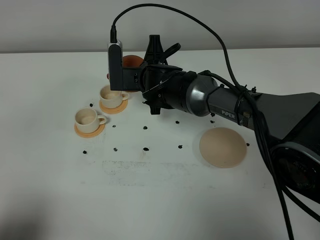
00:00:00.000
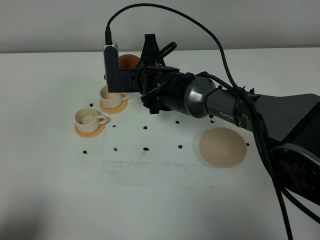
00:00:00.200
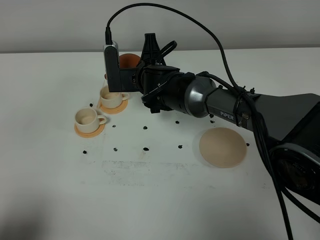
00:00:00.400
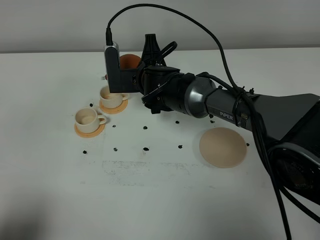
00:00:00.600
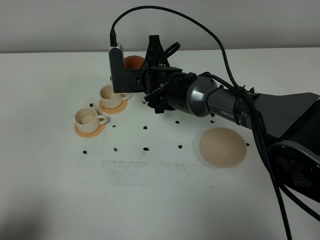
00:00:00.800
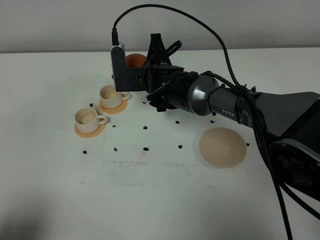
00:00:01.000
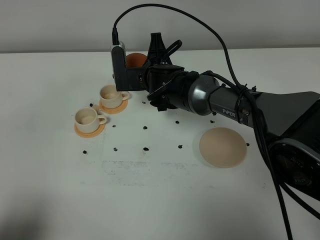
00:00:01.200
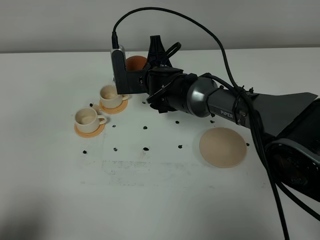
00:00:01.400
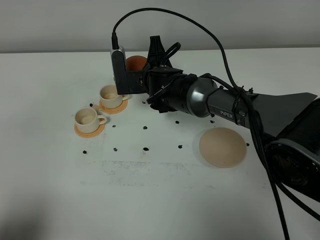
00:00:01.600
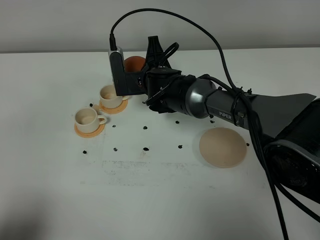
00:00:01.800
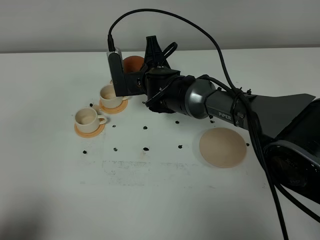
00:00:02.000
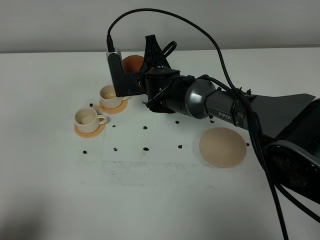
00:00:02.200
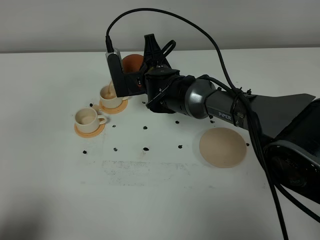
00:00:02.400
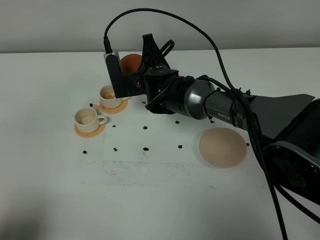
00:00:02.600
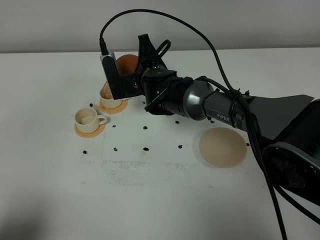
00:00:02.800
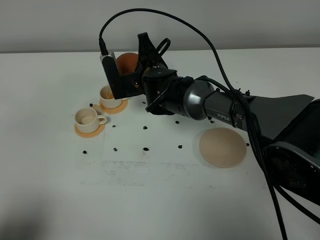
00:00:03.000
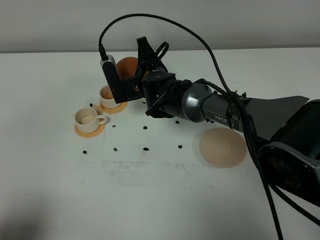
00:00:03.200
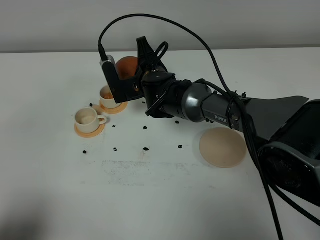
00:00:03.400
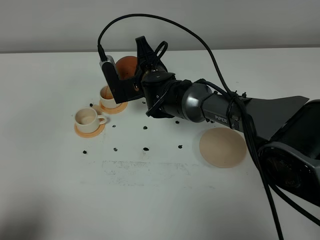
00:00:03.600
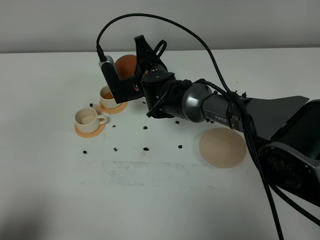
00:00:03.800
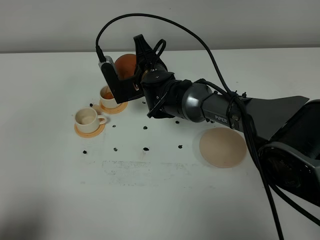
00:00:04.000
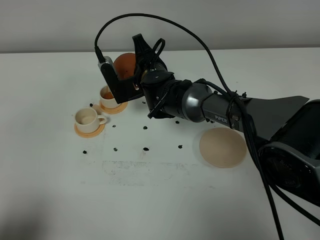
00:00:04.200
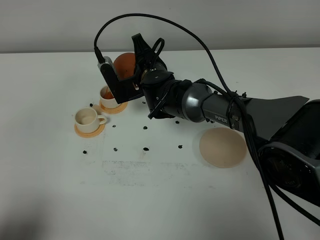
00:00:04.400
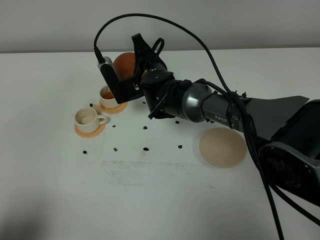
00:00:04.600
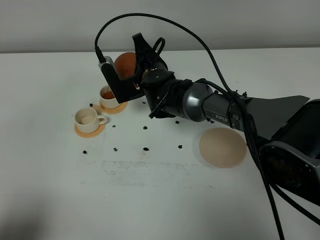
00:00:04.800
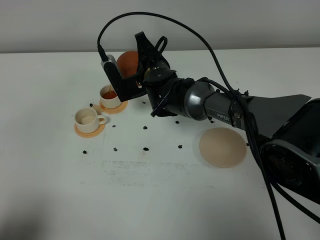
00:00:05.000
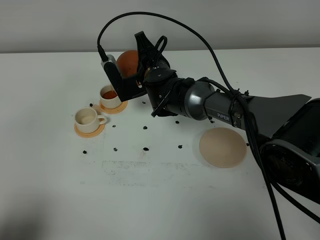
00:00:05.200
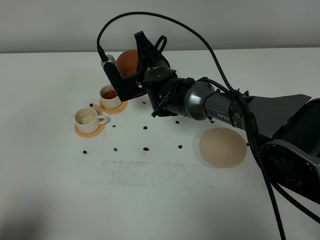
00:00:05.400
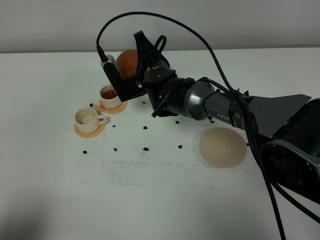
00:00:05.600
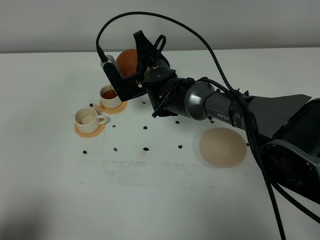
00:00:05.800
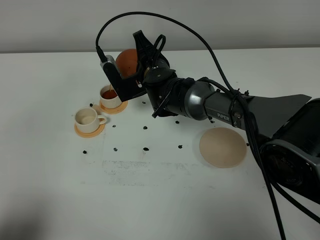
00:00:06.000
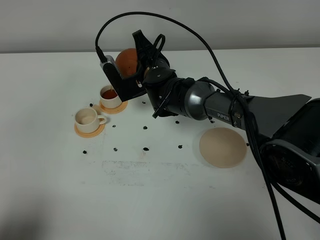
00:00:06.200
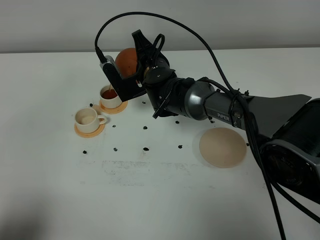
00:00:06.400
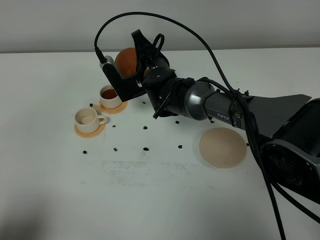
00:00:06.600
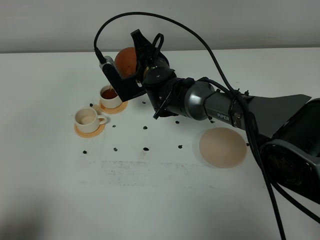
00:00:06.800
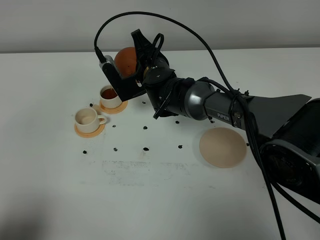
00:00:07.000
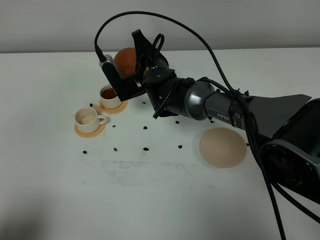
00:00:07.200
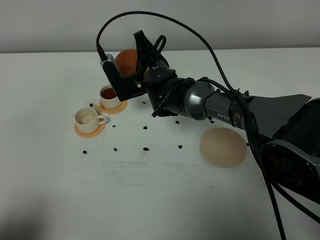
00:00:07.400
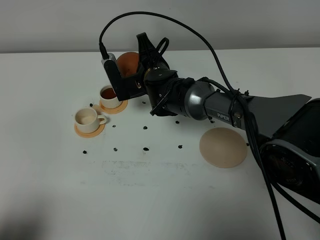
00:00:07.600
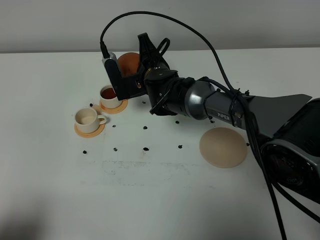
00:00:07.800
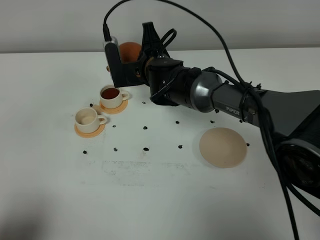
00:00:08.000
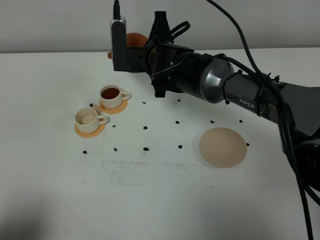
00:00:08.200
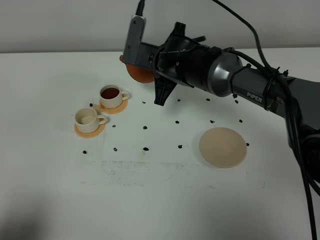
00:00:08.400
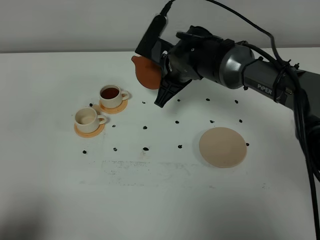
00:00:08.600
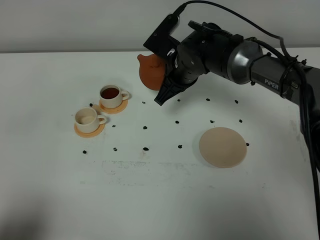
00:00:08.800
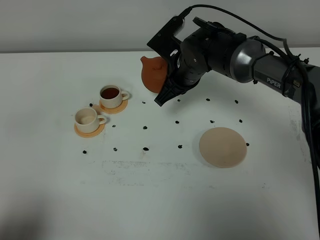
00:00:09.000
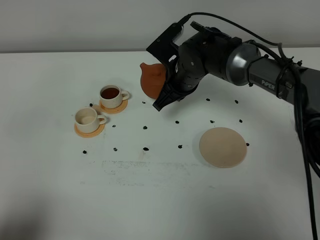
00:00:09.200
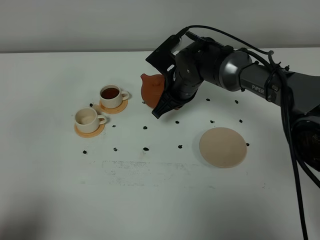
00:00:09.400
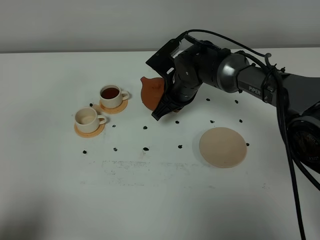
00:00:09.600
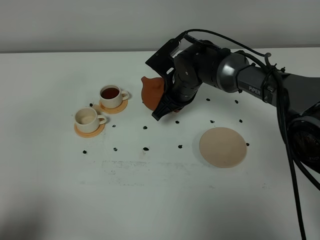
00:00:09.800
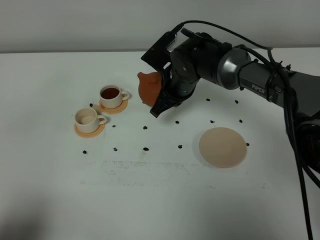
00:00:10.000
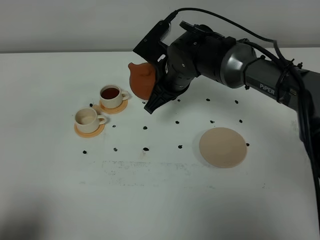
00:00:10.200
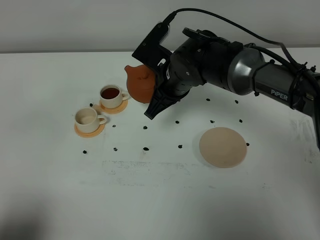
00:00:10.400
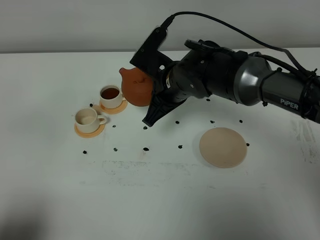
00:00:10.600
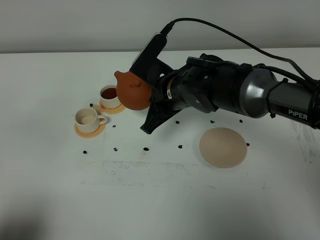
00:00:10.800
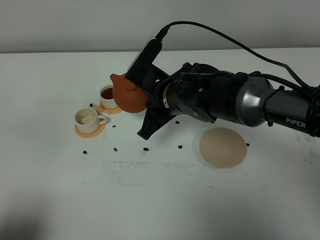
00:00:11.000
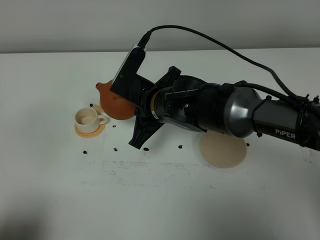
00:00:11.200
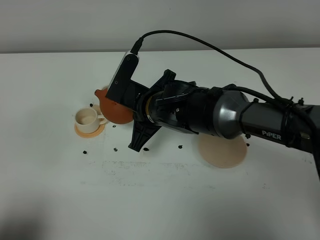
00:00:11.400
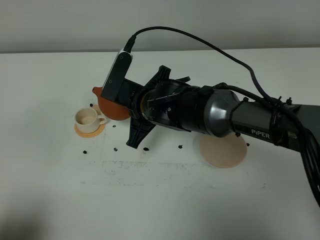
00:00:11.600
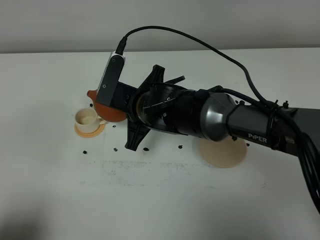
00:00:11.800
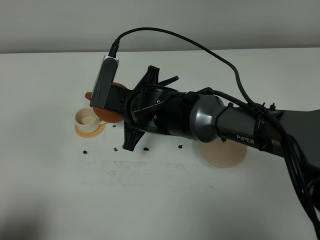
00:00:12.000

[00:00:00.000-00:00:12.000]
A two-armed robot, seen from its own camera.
Task of the whole recording: grasp the brown teapot and pour the tea into the two white teacups one by one, put the brown teapot back in its original place.
Step, 00:00:00.000 to 00:00:07.800: Pour tea into the teacup with the right gripper.
00:00:00.000 to 00:00:03.000: There are only small adjustments of the grippers.
00:00:03.000 to 00:00:04.400: The grippers move only a little.
00:00:04.400 to 00:00:06.000: Neither gripper changes place.
00:00:06.000 to 00:00:07.600: The grippers make only small movements.
00:00:07.600 to 00:00:09.000: The right gripper heads to the right, covering some 5 cm.
00:00:09.000 to 00:00:10.400: The right gripper ends up approximately 5 cm from where it was.
00:00:10.400 to 00:00:12.000: The right gripper travels to the left by about 5 cm.

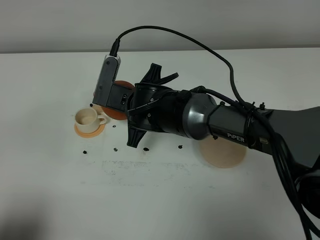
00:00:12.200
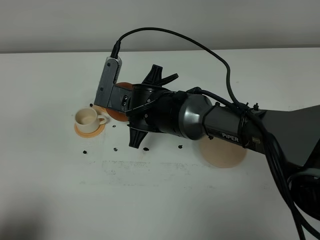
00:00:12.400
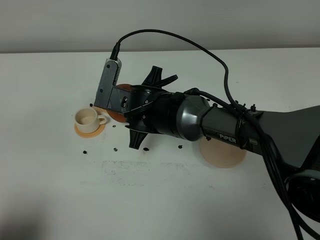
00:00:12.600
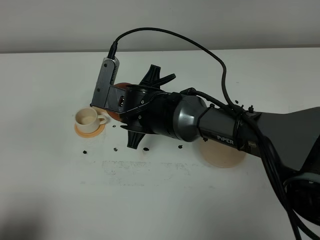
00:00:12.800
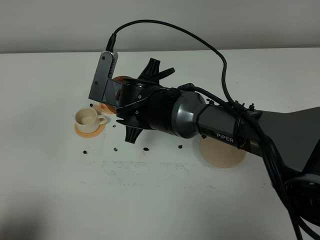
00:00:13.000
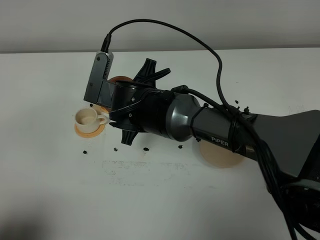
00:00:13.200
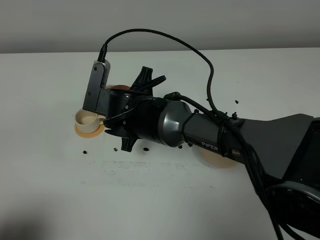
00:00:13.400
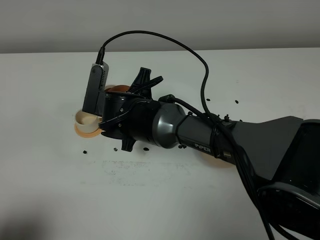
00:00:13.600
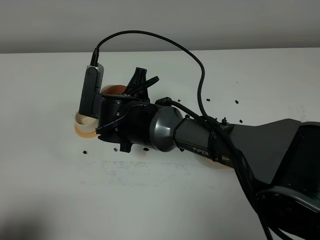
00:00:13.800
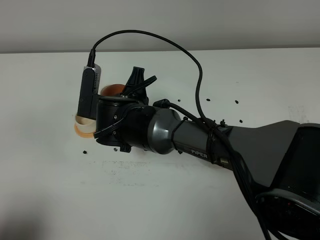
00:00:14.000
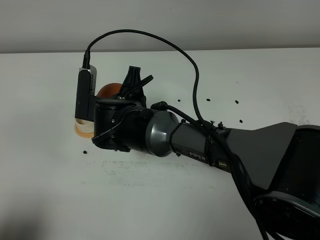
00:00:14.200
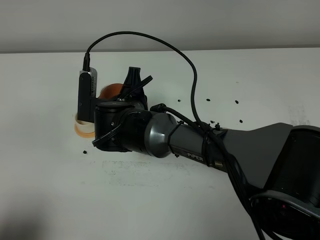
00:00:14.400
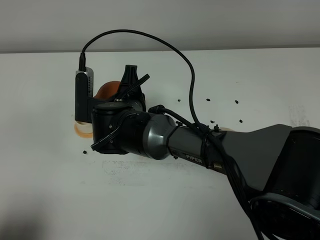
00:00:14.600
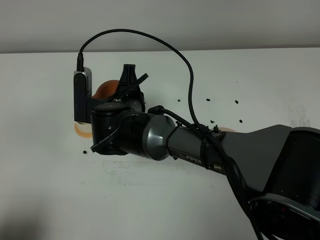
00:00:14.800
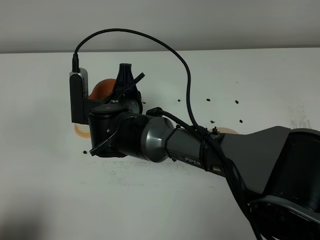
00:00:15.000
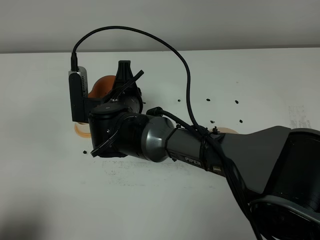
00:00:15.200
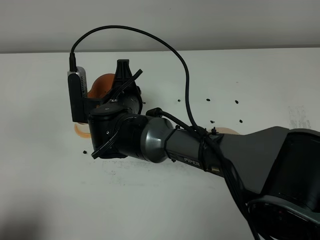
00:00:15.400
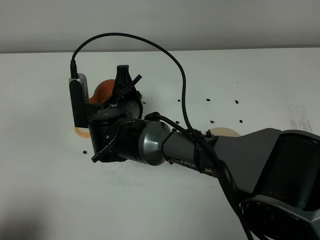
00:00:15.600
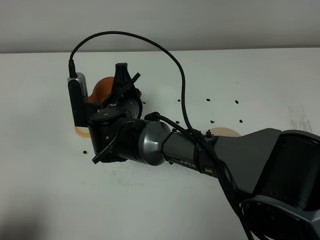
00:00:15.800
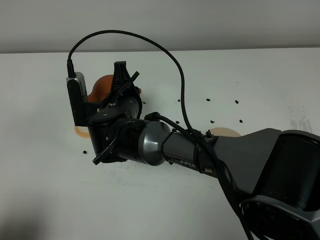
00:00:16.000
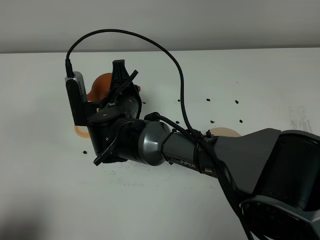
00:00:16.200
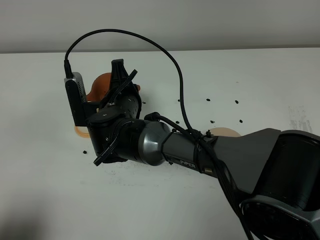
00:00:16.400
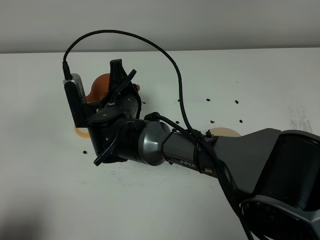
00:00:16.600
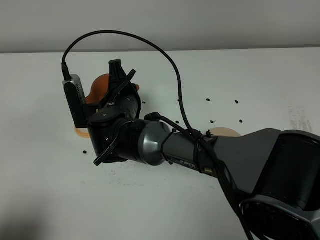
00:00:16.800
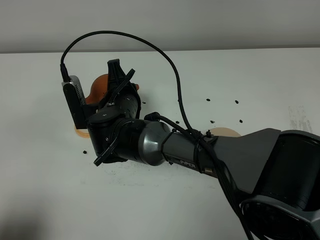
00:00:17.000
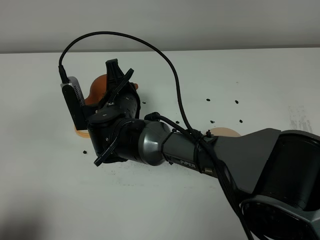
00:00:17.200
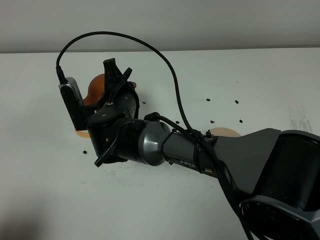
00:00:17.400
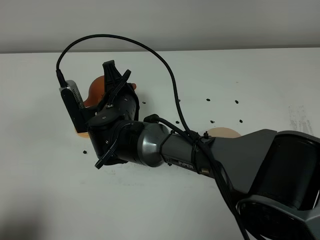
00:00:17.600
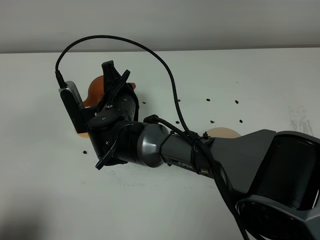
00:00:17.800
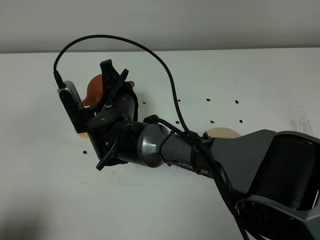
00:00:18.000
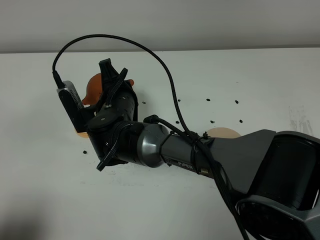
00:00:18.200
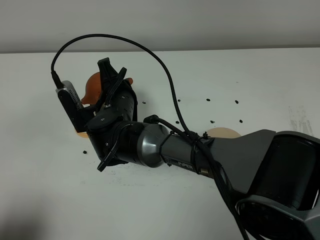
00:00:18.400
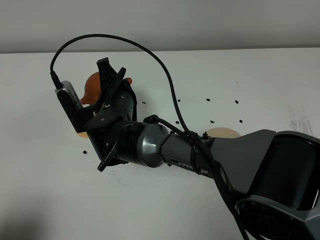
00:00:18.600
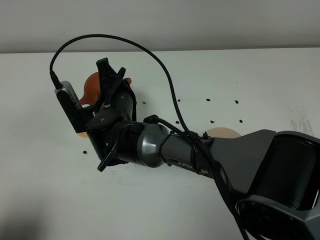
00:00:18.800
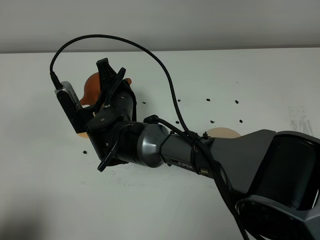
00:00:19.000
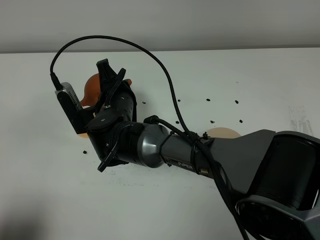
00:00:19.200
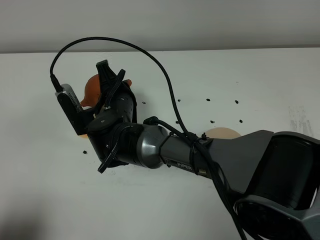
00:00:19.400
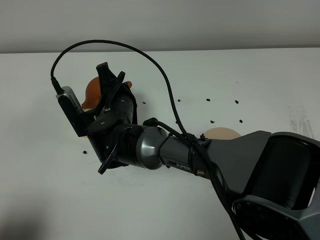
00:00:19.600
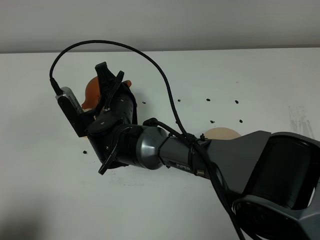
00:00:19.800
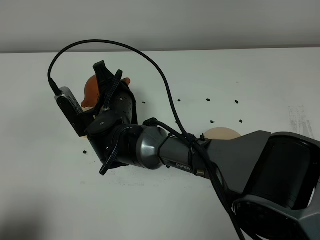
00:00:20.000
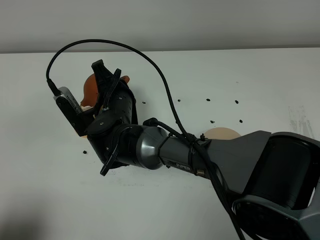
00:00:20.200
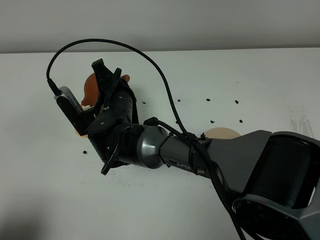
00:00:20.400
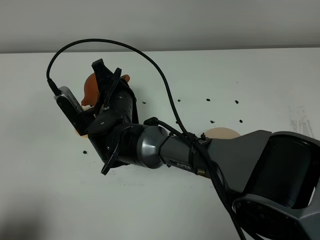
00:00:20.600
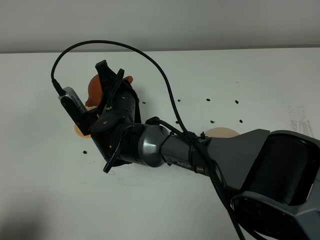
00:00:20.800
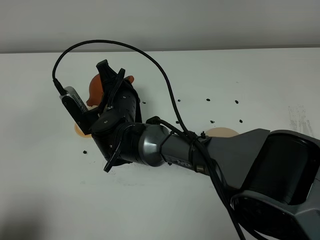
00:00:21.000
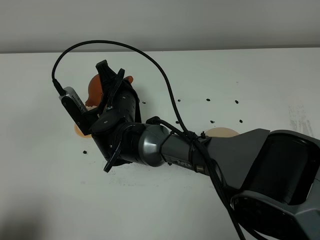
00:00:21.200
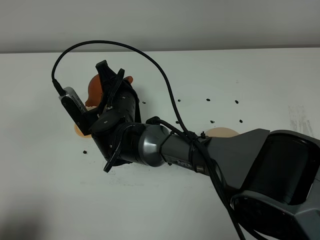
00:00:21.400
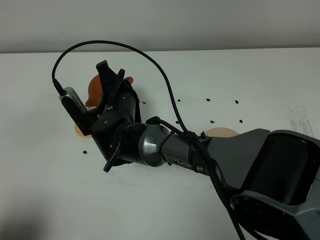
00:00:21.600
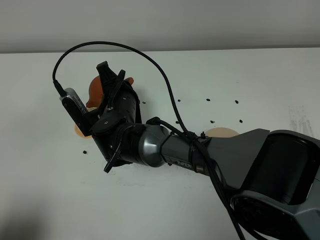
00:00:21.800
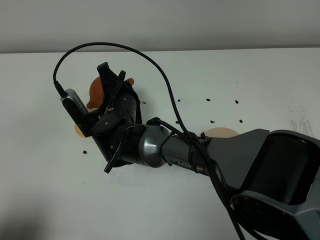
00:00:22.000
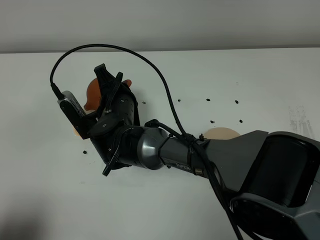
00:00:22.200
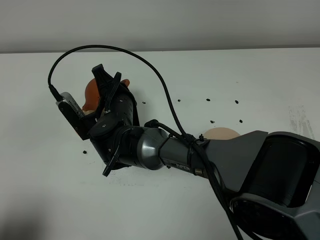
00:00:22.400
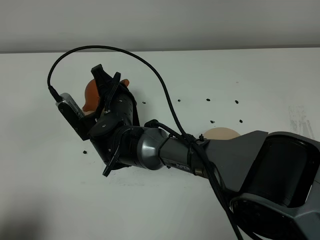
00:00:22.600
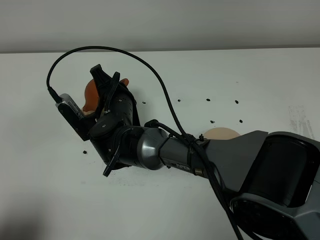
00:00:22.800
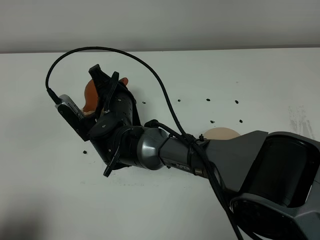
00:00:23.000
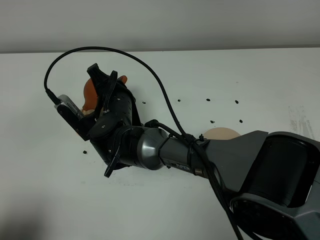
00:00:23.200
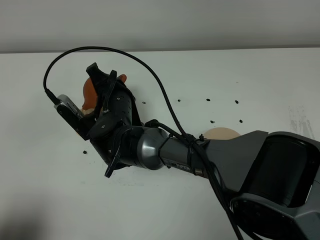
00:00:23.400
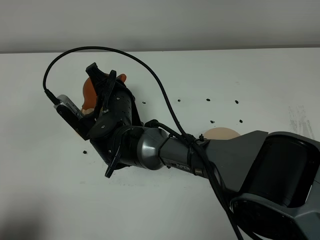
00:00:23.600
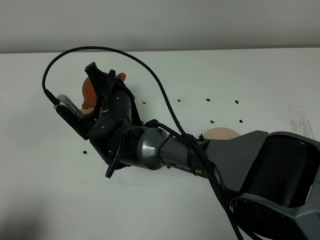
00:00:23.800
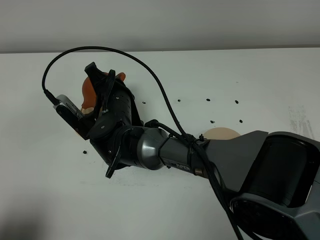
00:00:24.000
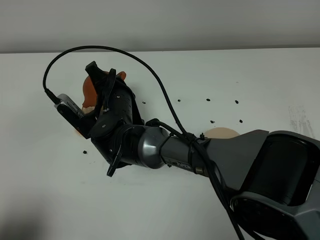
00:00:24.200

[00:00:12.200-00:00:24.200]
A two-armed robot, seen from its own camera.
Task of the whole recording: grasp the brown teapot and pour the tea into the two white teacups one by one, put the brown teapot back in its original place.
00:00:13.800 to 00:00:15.200: The grippers make only small movements.
00:00:15.200 to 00:00:16.600: There are only small adjustments of the grippers.
00:00:16.600 to 00:00:18.200: The grippers make only small movements.
00:00:18.200 to 00:00:19.800: Both grippers stay put.
00:00:19.800 to 00:00:21.200: The two grippers keep their place.
00:00:21.200 to 00:00:22.600: The two grippers keep their place.
00:00:22.600 to 00:00:24.200: The grippers stay close to where they were, moving slightly.
